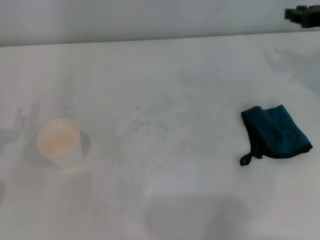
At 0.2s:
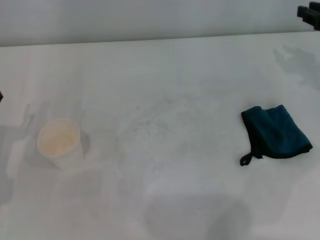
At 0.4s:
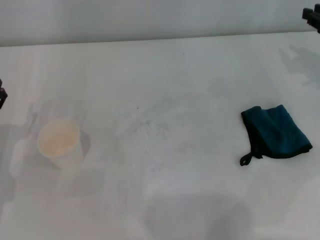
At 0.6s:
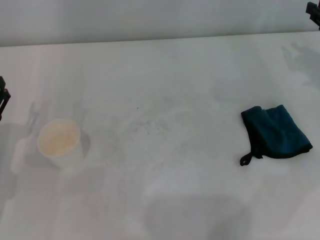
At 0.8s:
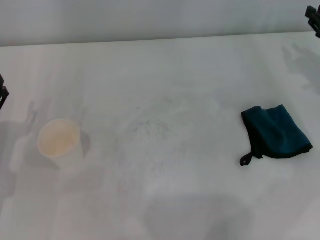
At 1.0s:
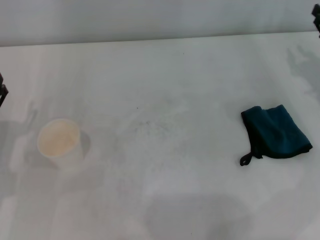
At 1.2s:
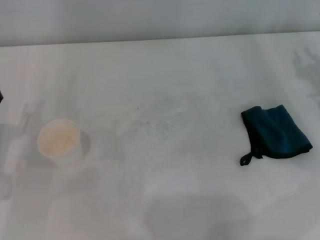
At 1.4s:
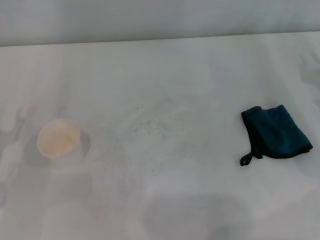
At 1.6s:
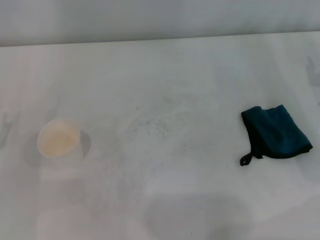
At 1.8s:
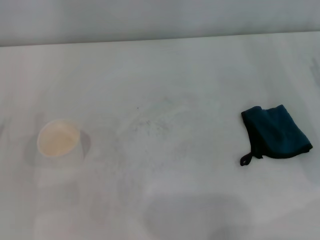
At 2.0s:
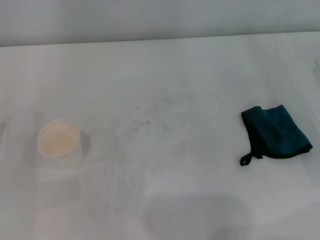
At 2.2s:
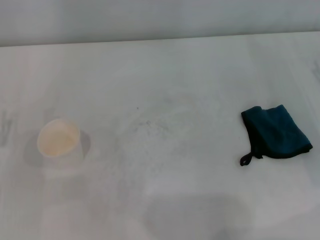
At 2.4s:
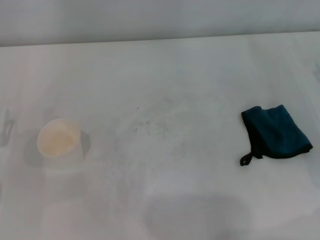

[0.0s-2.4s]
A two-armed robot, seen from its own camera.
0.0s to 1.2s: The right gripper is displaced downward and backward by roughly 10 cm.

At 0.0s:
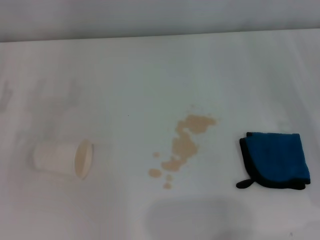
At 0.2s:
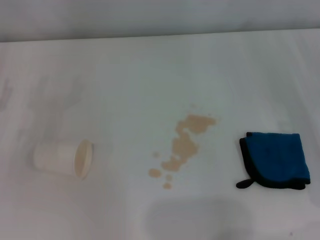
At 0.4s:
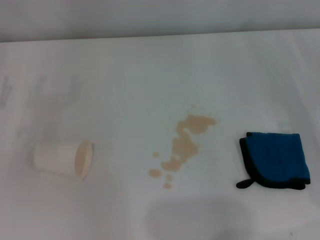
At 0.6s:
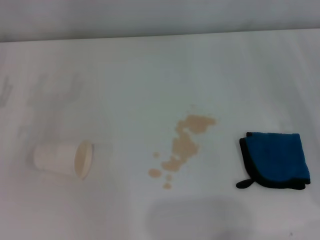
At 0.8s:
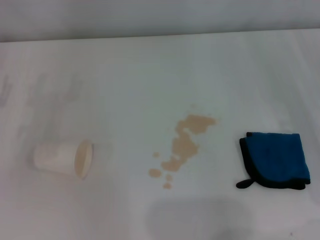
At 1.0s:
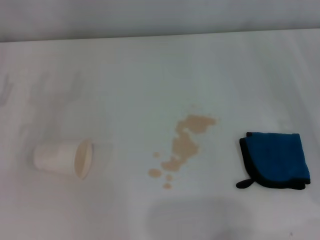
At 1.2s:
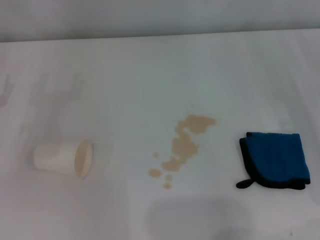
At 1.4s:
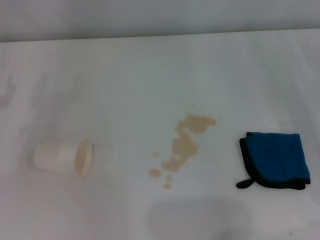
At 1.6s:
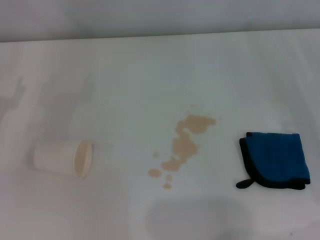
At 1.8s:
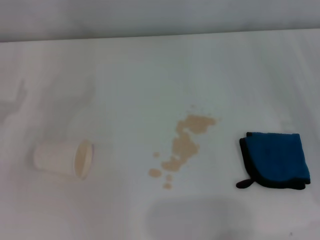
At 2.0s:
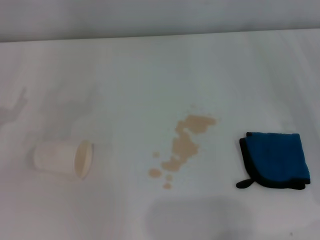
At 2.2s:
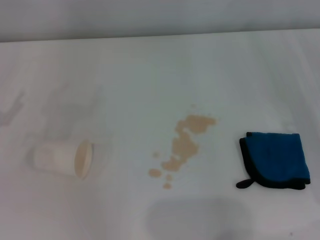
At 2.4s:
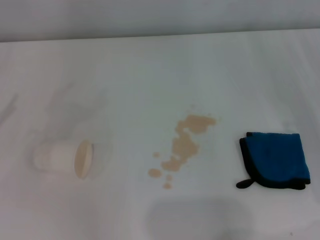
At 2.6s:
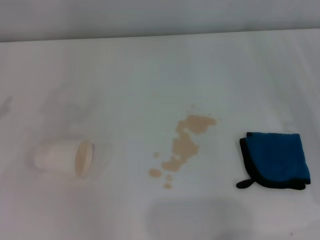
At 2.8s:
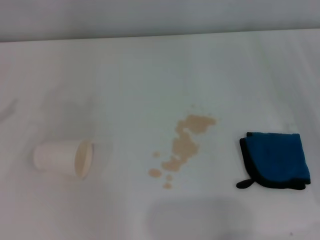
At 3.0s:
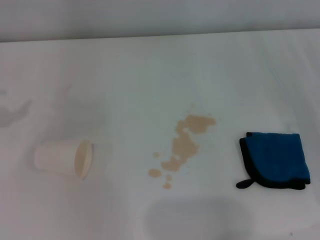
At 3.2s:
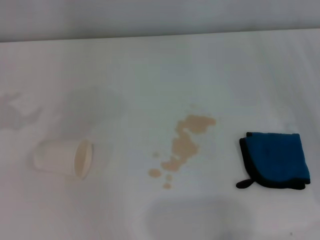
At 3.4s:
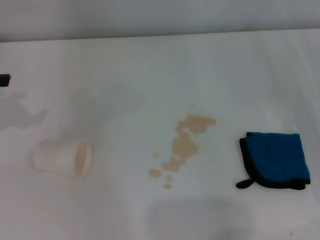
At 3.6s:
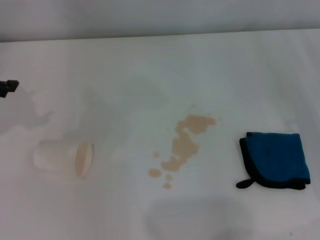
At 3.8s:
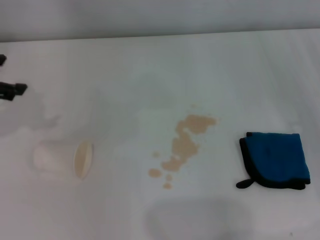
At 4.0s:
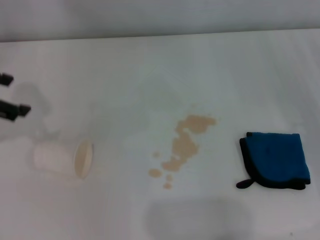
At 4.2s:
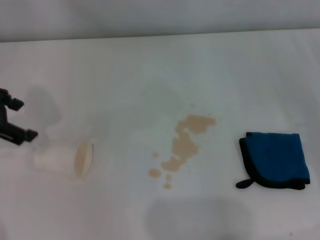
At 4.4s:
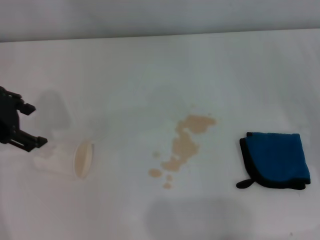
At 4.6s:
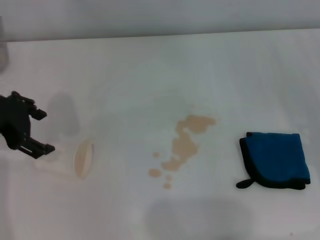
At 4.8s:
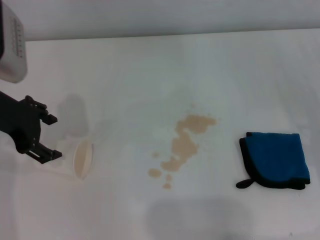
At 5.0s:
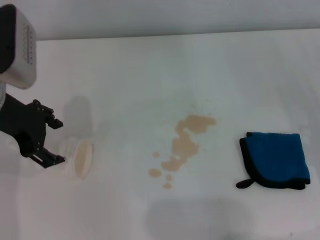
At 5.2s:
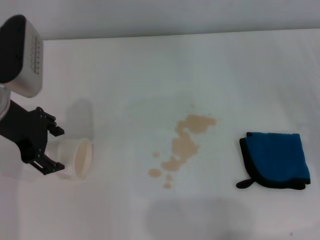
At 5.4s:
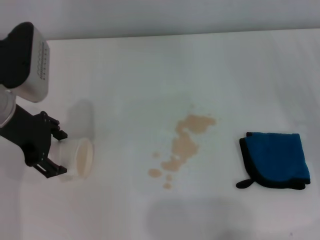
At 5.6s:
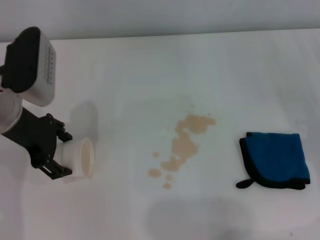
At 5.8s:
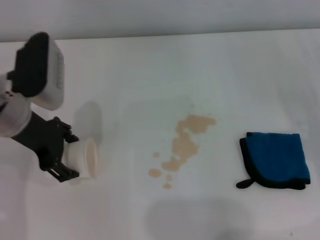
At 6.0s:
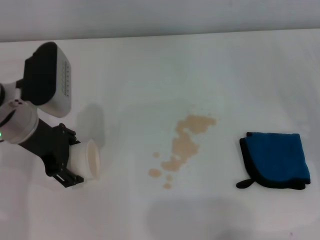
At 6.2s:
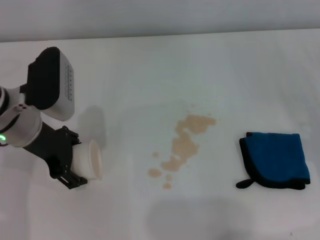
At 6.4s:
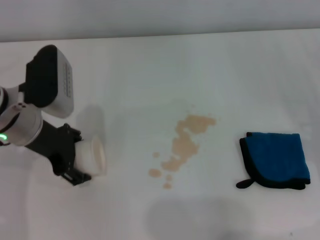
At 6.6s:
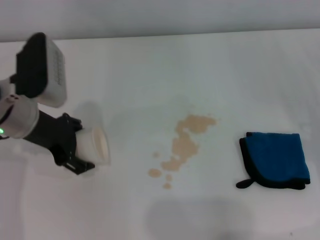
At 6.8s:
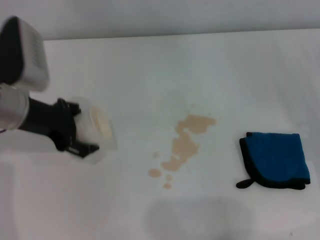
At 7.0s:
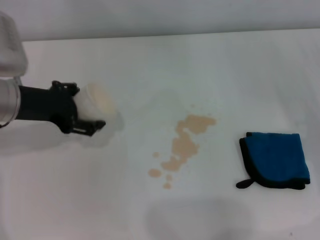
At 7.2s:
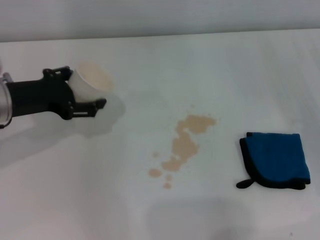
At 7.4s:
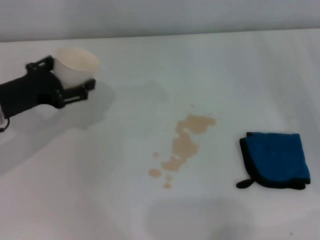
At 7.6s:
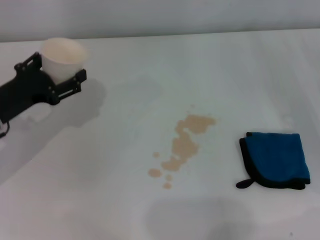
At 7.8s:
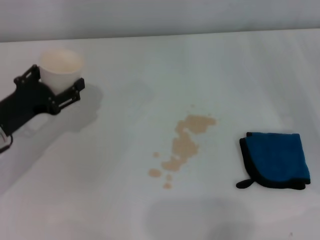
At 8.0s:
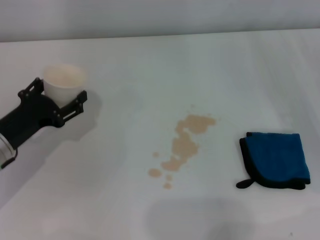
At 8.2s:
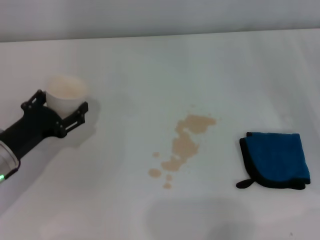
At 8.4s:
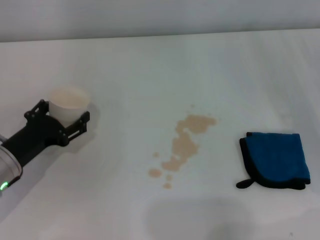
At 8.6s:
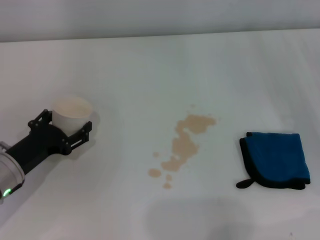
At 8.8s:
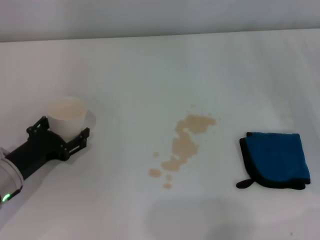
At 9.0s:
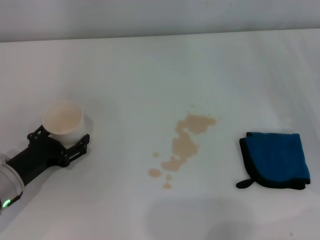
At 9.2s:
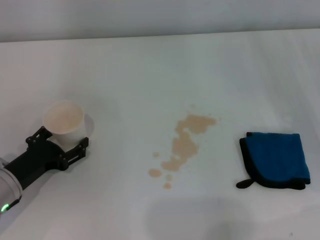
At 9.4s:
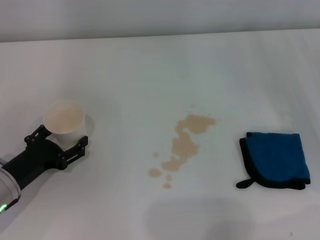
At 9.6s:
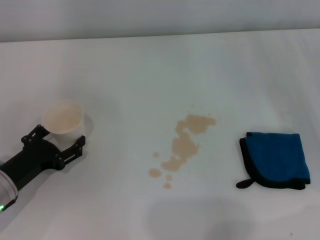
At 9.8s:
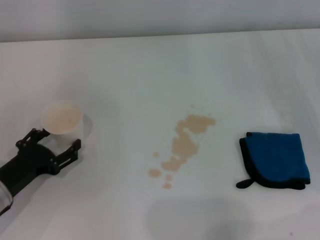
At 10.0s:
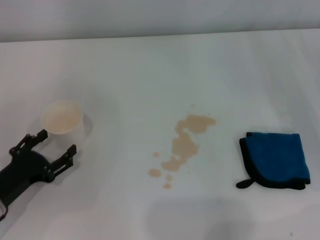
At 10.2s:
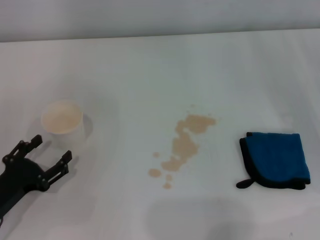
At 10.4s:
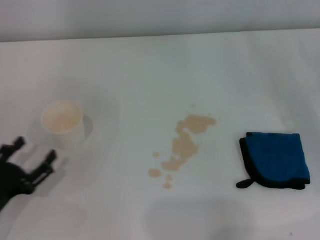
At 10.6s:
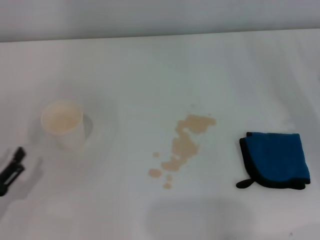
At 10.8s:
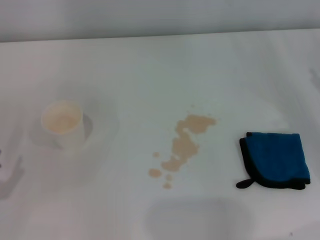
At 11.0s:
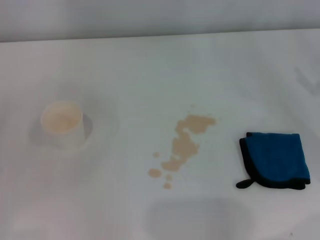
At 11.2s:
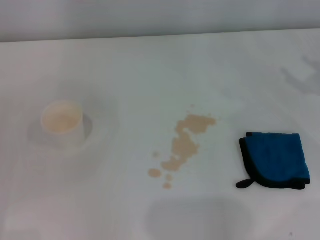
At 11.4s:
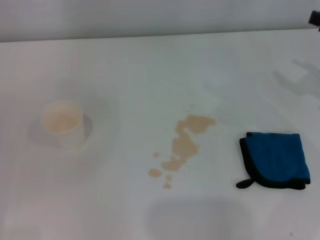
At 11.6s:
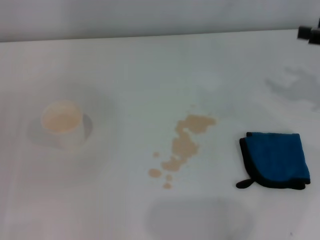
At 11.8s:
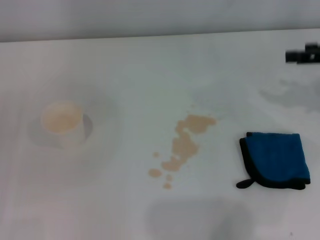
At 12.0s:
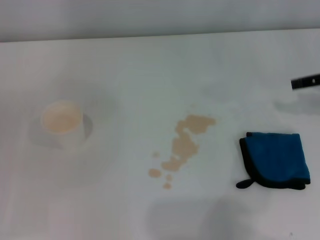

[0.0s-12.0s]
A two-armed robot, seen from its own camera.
Step, 0.0s to 6.0s: Grasp the paper cup with the left gripper.
Step, 6.4s to 8.8s: Stand the paper cup upright with the left gripper.
3.0s to 4.4s: The left gripper travels to the right by some 15 cm.
4.4s to 6.0s: The left gripper goes some 10 cm downward and to the right.
6.0s to 7.6s: The left gripper shifts approximately 10 cm to the left and downward.
7.6s to 9.0s: The left gripper travels downward and backward by roughly 10 cm.
9.0s to 10.4s: The left gripper moves backward, roughly 10 cm.
10.4s to 12.0s: The left gripper heads to the left, covering about 10 cm.

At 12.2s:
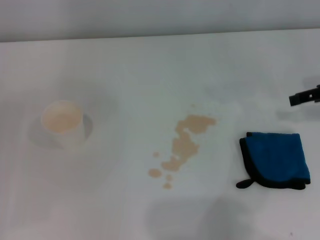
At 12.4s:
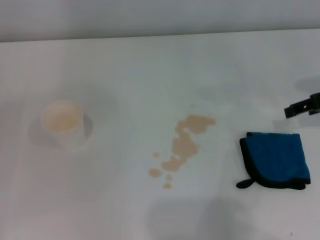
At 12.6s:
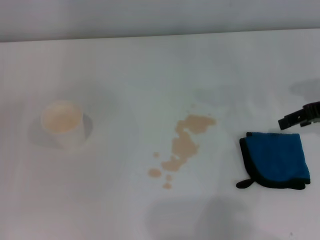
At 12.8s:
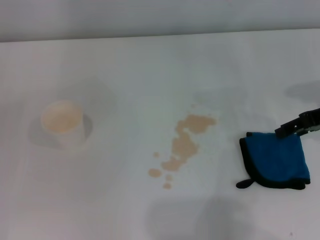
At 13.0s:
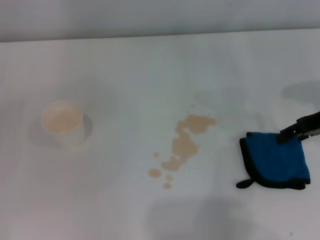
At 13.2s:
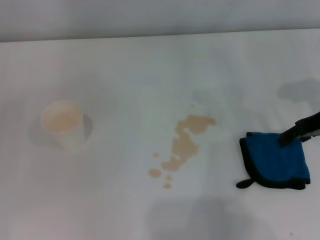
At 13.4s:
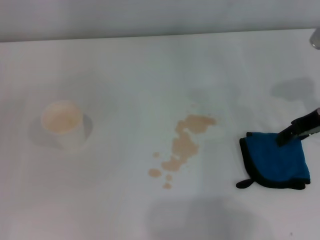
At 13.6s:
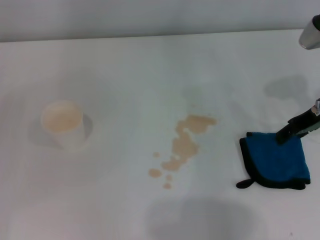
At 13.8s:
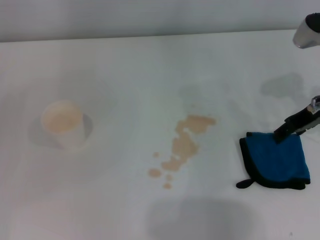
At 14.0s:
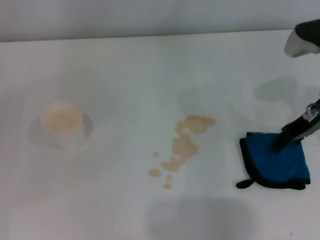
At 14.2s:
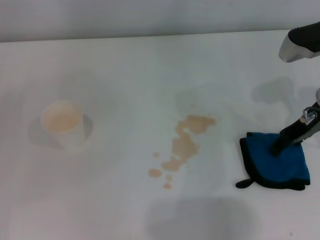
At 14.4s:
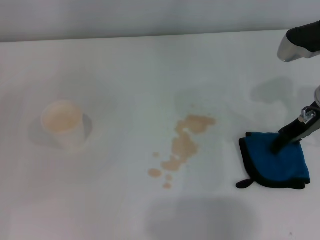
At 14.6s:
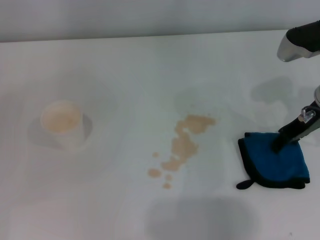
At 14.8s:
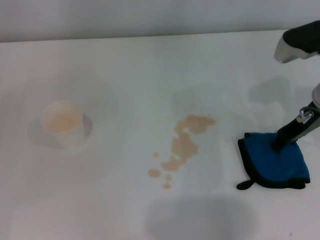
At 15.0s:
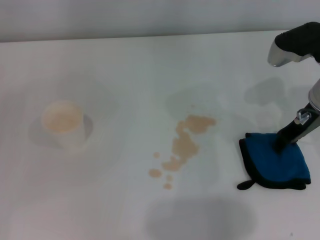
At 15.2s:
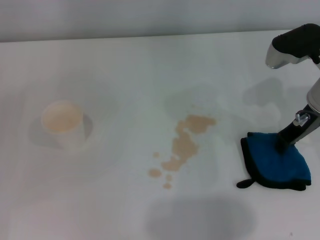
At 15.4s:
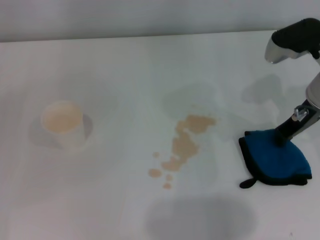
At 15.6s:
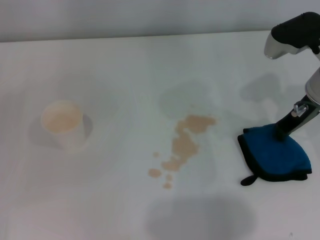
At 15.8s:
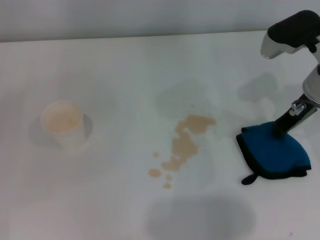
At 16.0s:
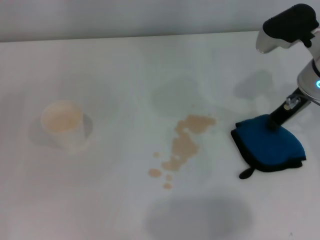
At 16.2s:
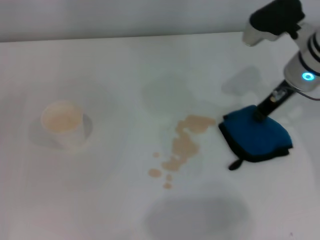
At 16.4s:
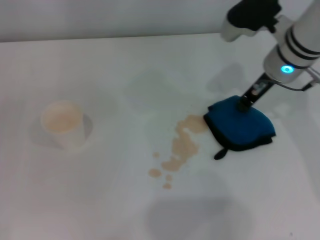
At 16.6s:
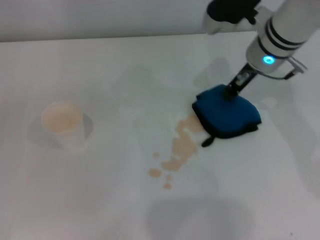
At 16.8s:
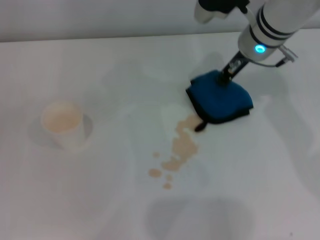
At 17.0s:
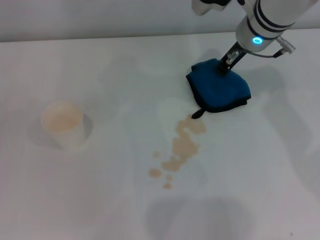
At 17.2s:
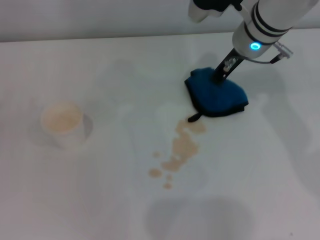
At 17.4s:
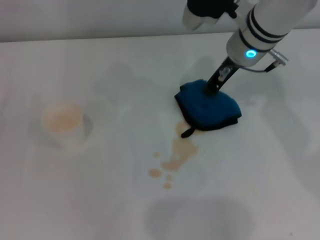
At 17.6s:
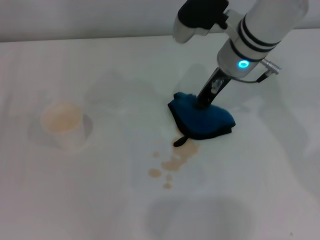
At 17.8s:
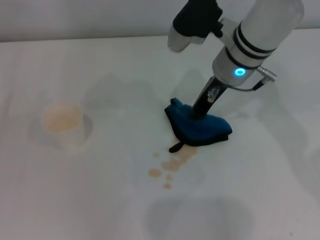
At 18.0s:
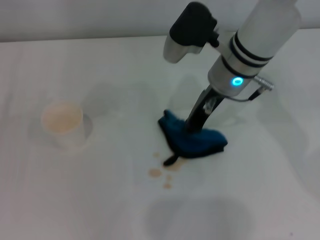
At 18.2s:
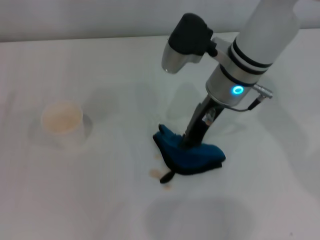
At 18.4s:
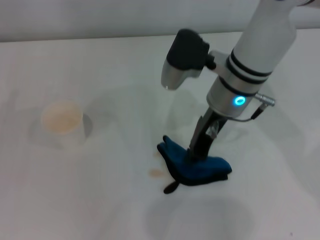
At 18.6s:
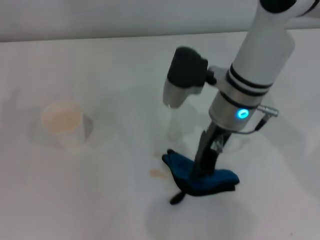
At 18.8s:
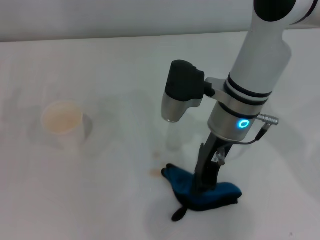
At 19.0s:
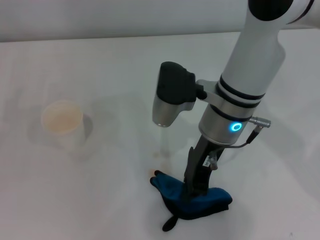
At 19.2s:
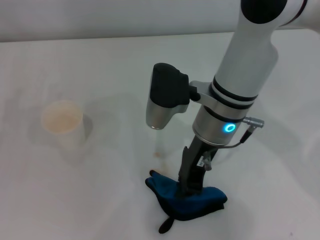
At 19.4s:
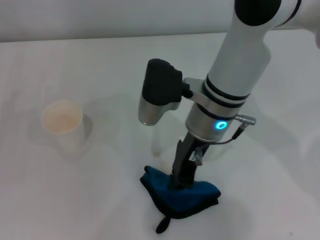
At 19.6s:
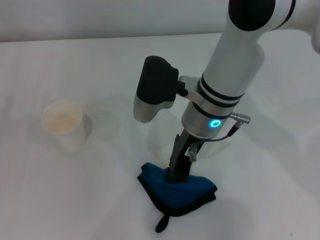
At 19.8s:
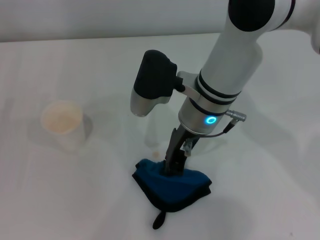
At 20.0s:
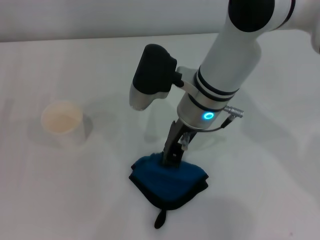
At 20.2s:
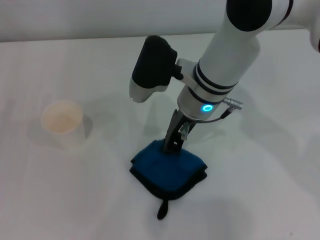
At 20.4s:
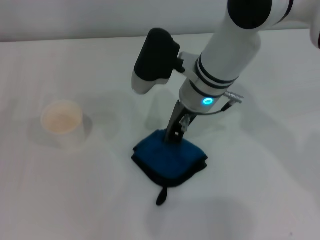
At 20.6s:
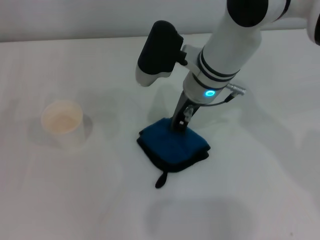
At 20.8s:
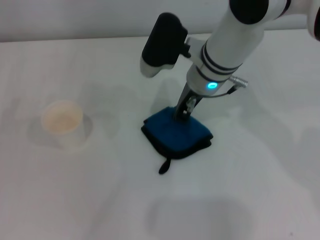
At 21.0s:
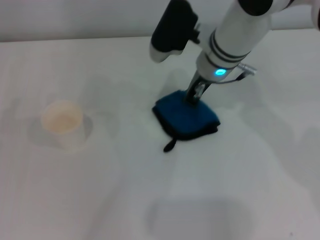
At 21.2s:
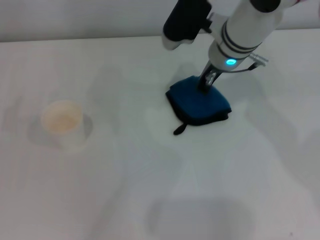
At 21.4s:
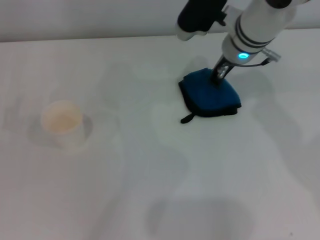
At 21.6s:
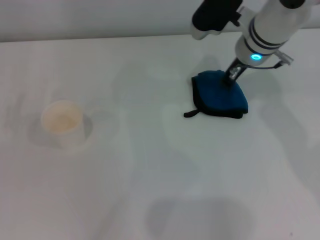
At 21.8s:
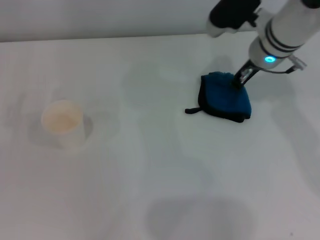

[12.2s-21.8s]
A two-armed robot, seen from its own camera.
Step, 12.2s to 15.2s: Grasp the rag with the right gripper.
12.2s to 13.8s: The right gripper travels to the left by some 5 cm.
13.8s to 15.4s: The right gripper closes up.
15.4s to 17.0s: The right gripper travels to the left and forward by some 10 cm.
17.0s to 18.6s: The right gripper heads backward and to the left, covering approximately 10 cm.
20.2s to 21.8s: The right gripper moves to the right and forward, about 15 cm.
